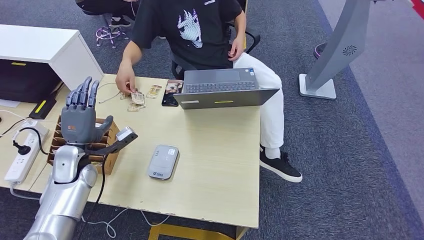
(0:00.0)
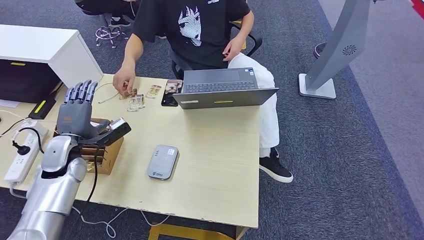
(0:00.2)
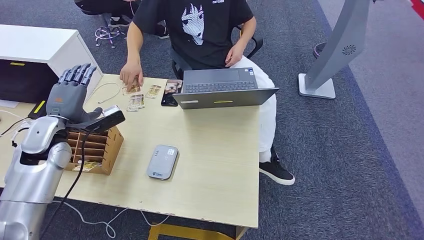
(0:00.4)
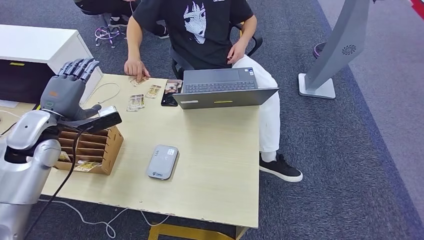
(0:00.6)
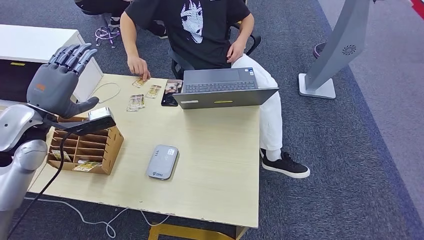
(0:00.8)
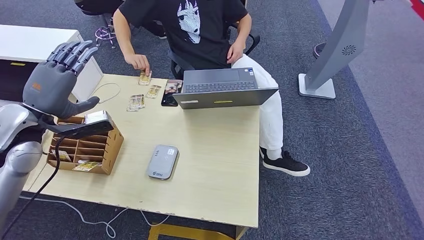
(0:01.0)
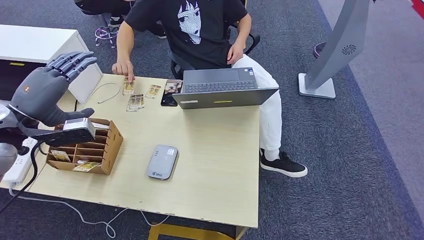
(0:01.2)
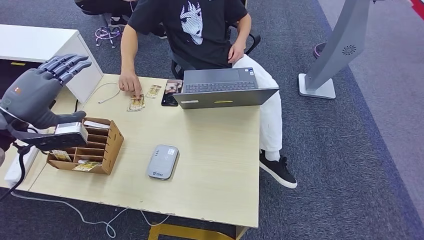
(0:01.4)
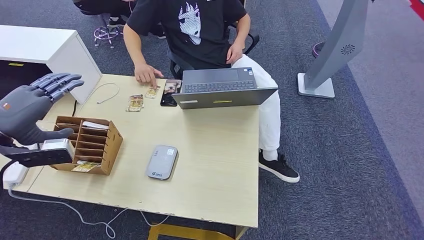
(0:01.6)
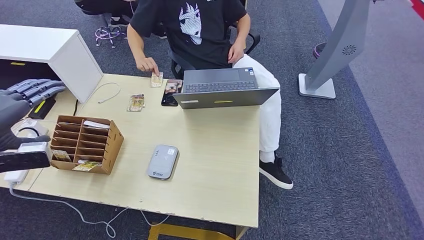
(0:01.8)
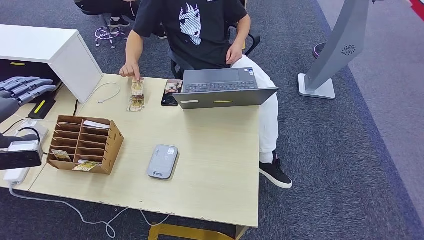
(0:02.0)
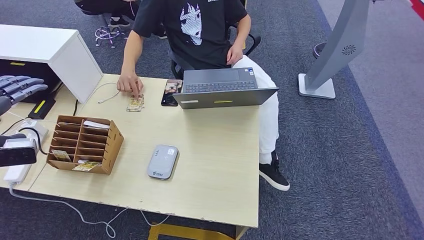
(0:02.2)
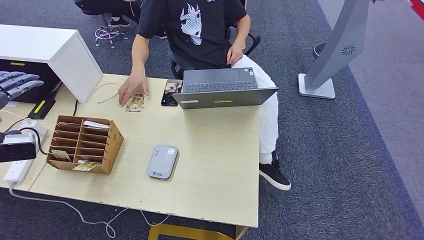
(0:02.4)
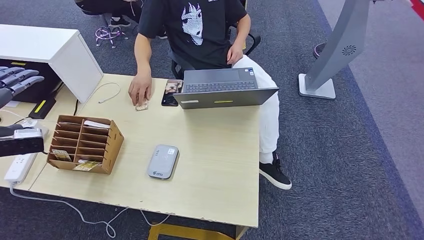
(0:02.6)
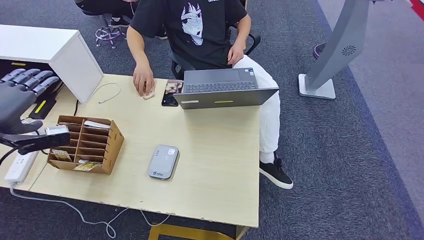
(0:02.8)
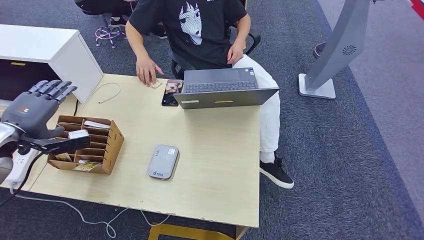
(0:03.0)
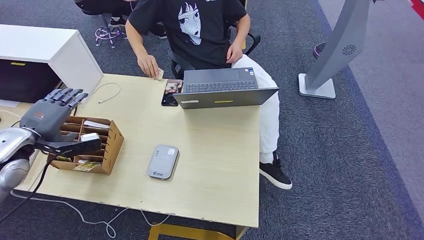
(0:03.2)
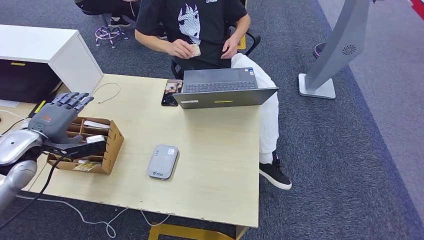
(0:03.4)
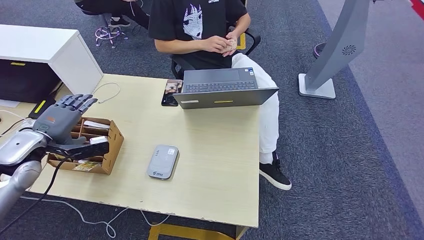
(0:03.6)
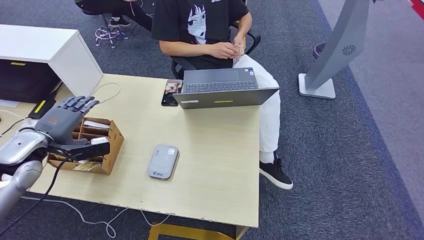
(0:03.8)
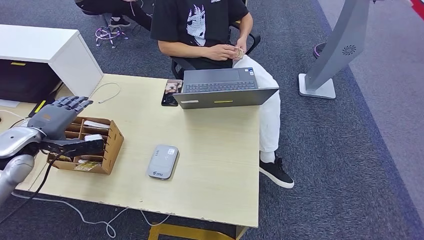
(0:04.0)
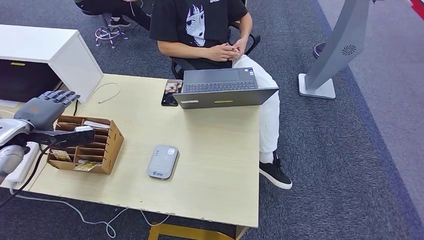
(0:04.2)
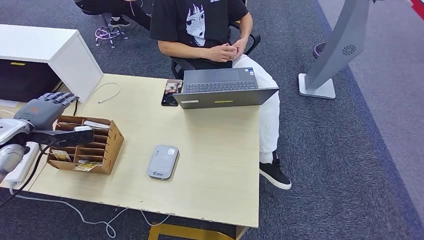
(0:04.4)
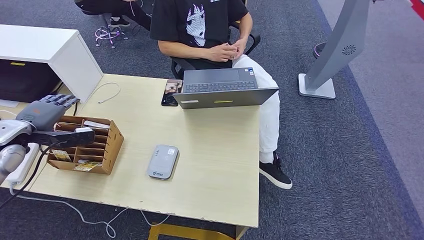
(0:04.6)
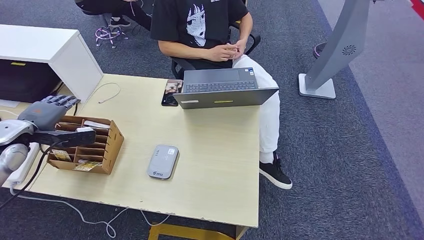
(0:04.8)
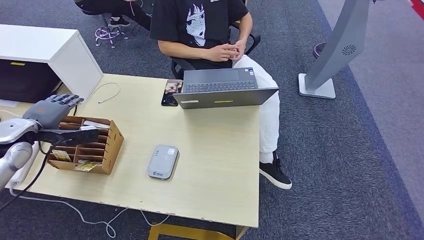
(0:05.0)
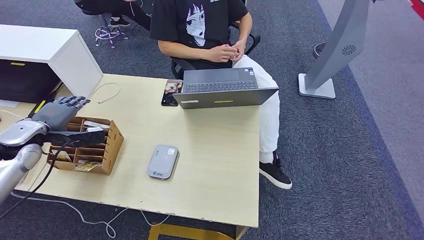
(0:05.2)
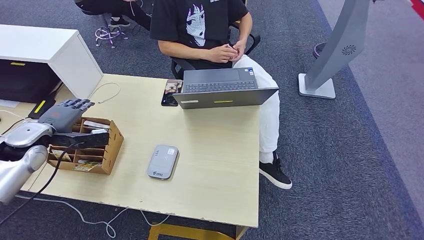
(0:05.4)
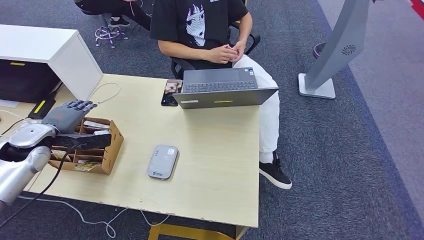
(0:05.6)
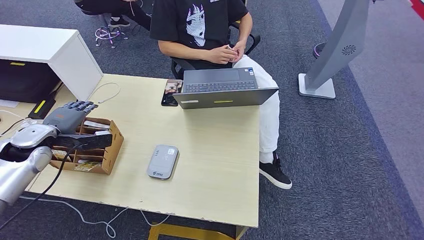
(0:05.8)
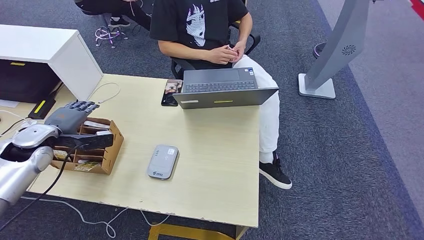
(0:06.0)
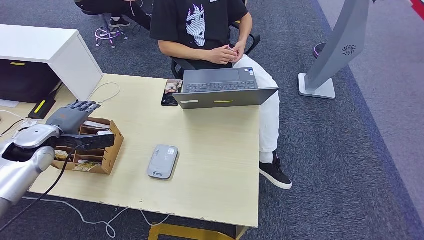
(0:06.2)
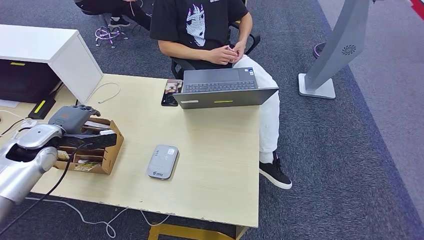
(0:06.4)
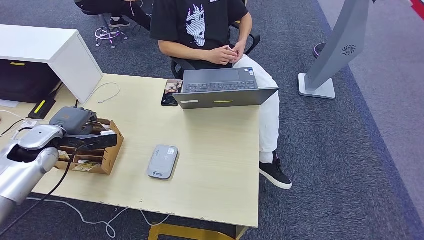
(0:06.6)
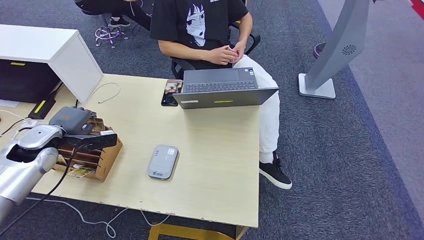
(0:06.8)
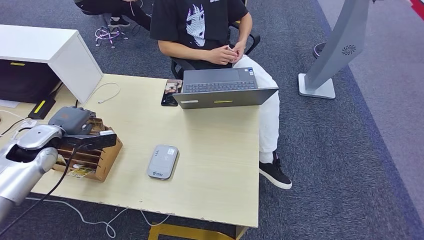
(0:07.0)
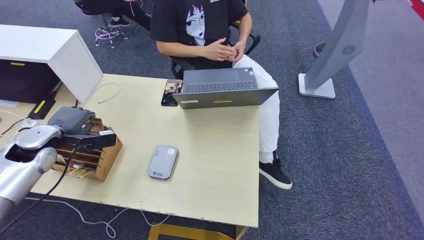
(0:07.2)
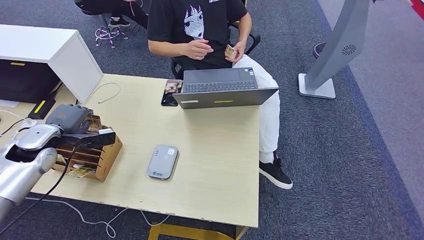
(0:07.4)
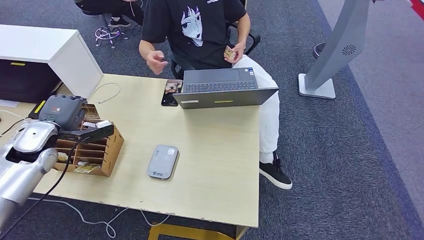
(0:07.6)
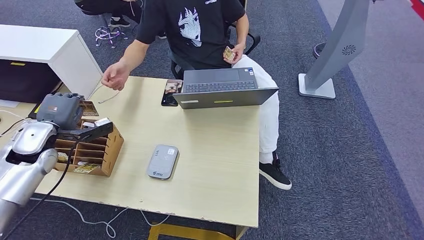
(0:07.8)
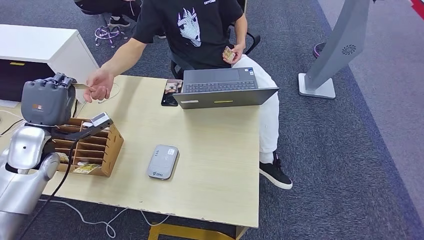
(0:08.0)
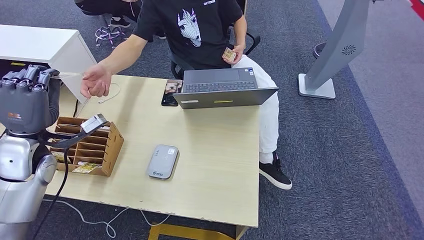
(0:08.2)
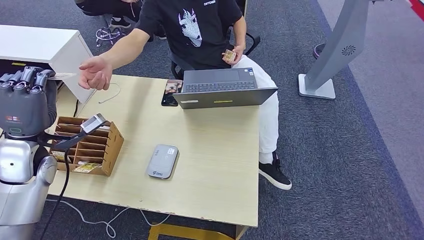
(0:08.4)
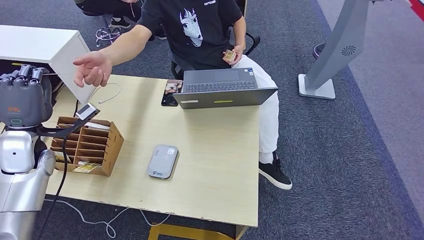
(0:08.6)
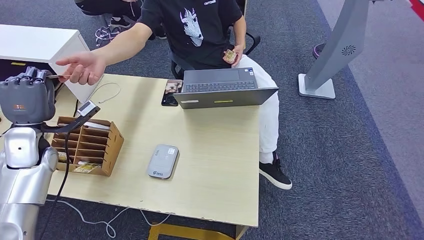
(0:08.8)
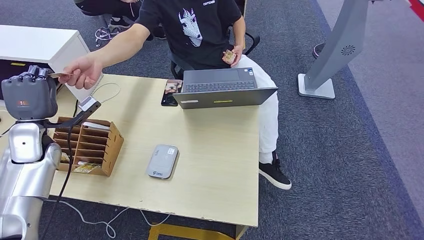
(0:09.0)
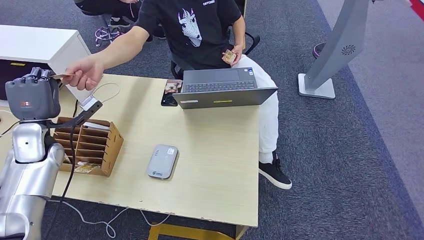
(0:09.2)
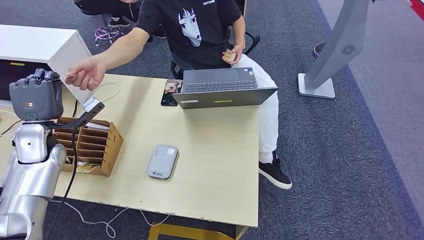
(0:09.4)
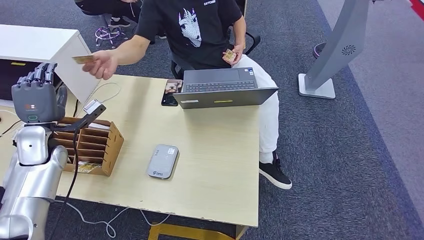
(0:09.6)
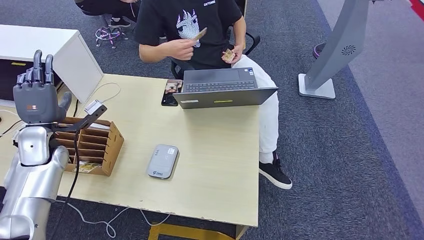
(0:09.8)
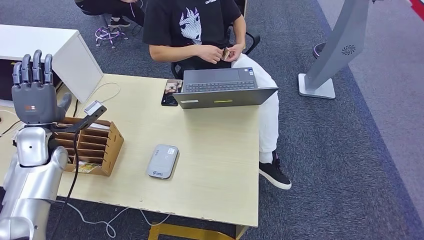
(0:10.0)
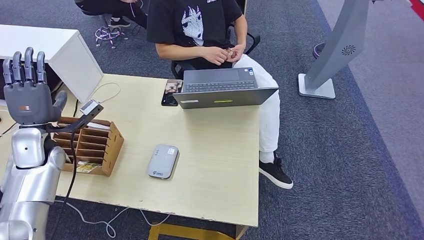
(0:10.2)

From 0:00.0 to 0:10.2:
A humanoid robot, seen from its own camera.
Step, from 0:00.2 to 0:07.8: Pick up the room key from the key card box.
Step, from 0:08.0 to 0:10.2: Hand the room key to the person.
From 0:00.0 to 0:01.4: The left hand travels upward by some 20 cm.
From 0:01.4 to 0:03.0: The left hand travels downward and to the left by about 5 cm.
From 0:03.0 to 0:04.4: The hands make only small movements.
From 0:04.4 to 0:05.8: The left hand moves some 5 cm.
From 0:05.8 to 0:07.2: Both hands stay put.
From 0:08.8 to 0:10.2: The hands stay close to where they were, moving slightly.

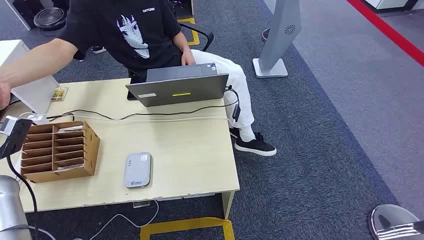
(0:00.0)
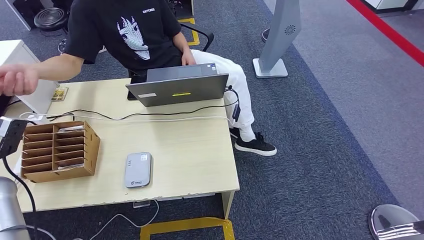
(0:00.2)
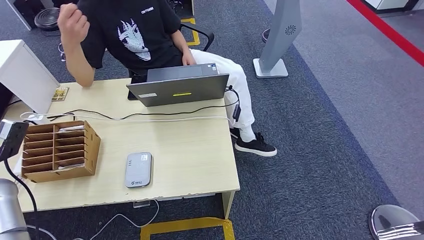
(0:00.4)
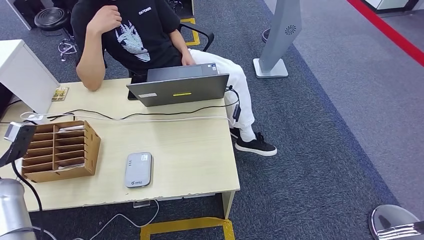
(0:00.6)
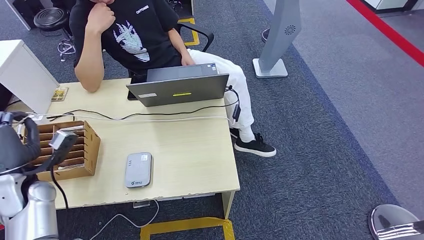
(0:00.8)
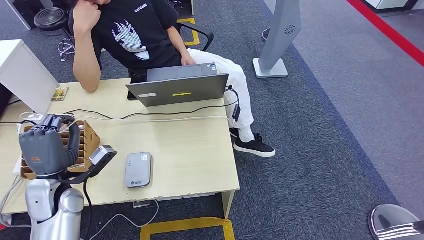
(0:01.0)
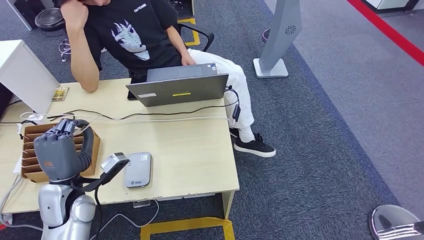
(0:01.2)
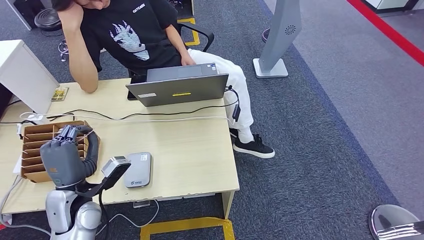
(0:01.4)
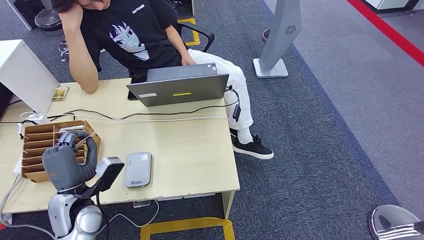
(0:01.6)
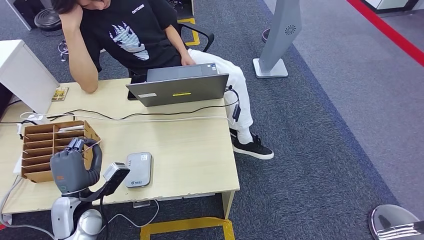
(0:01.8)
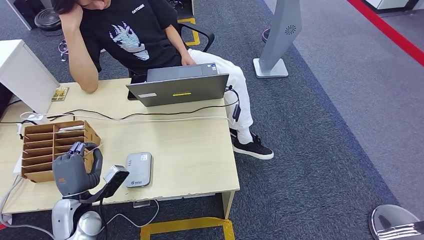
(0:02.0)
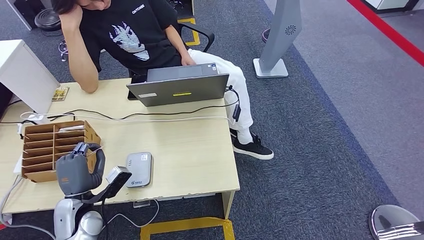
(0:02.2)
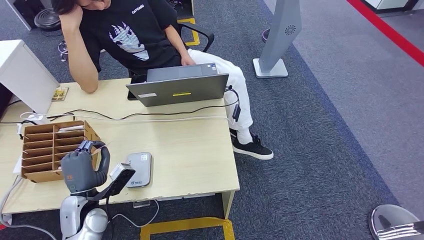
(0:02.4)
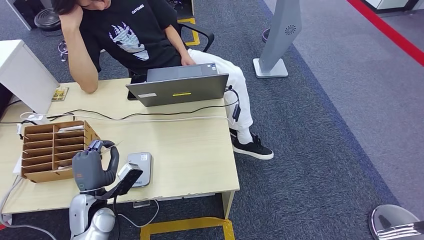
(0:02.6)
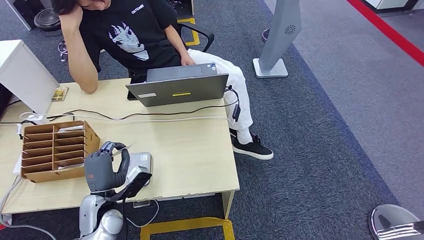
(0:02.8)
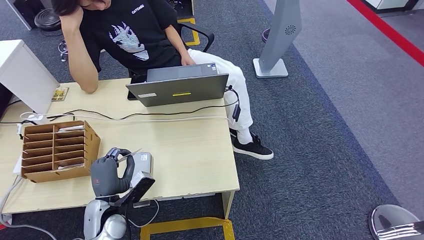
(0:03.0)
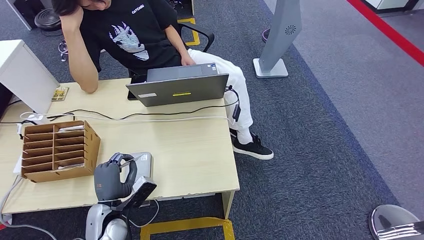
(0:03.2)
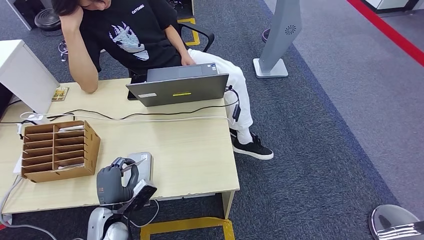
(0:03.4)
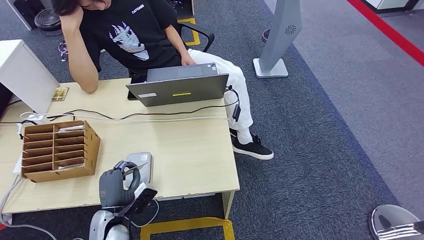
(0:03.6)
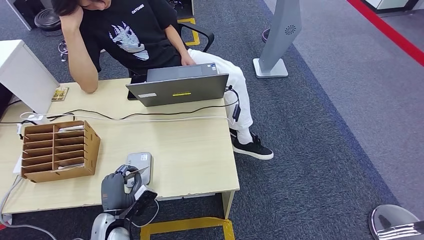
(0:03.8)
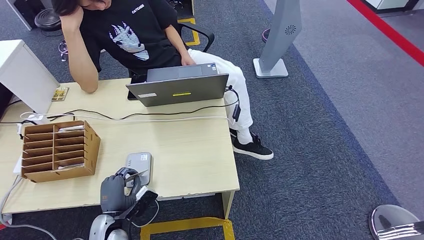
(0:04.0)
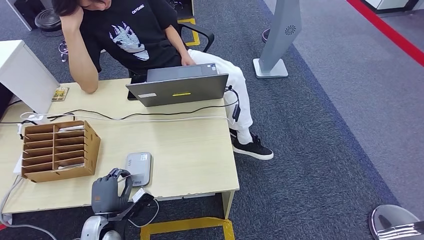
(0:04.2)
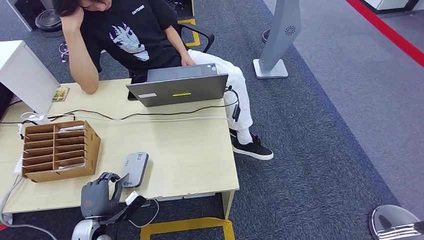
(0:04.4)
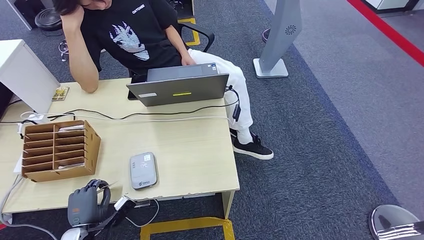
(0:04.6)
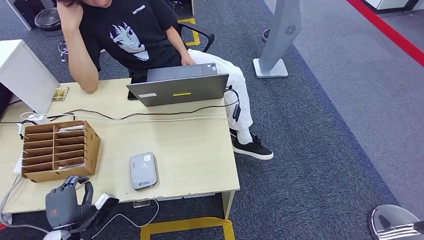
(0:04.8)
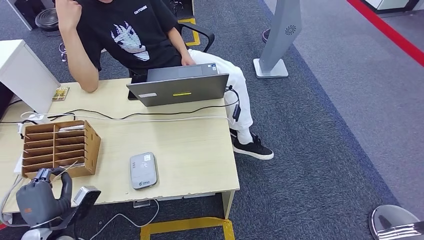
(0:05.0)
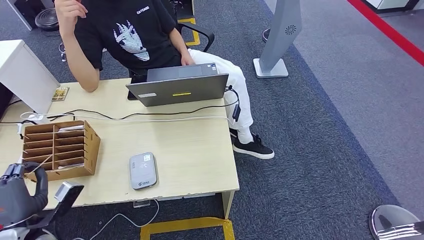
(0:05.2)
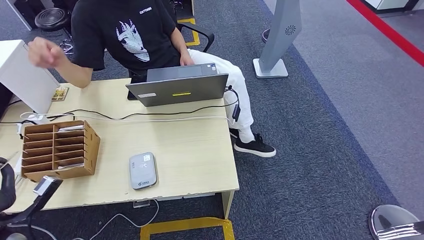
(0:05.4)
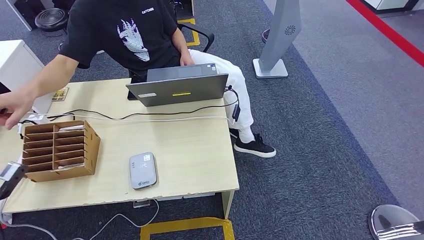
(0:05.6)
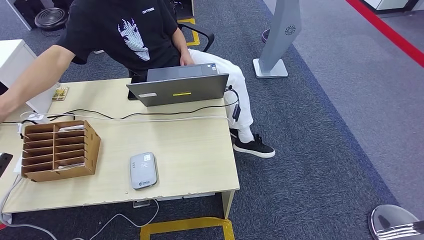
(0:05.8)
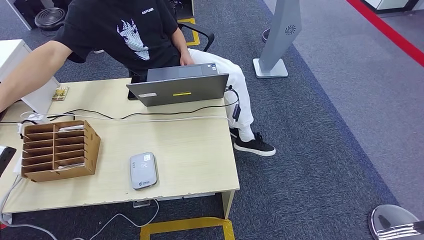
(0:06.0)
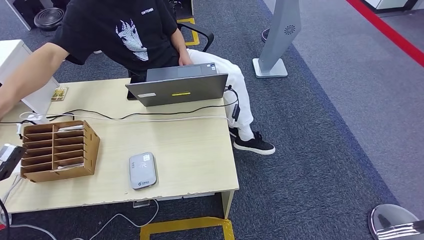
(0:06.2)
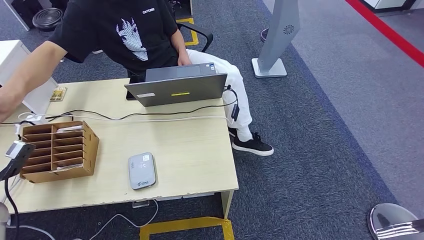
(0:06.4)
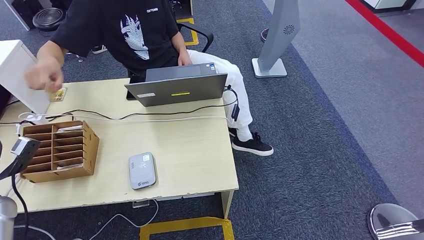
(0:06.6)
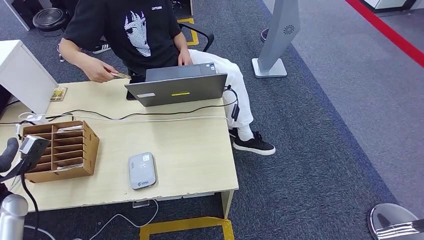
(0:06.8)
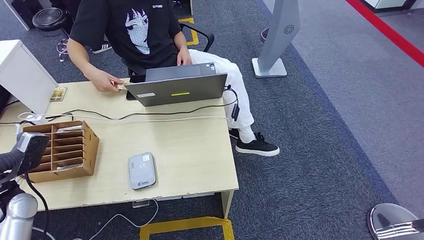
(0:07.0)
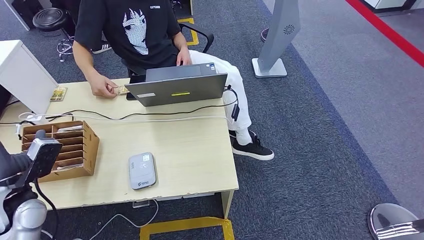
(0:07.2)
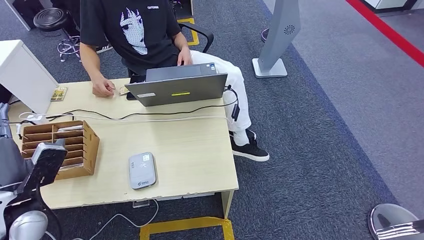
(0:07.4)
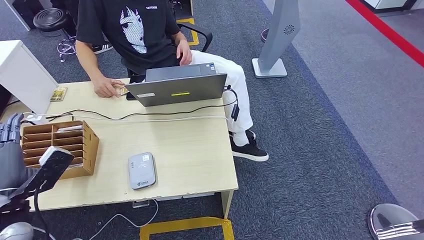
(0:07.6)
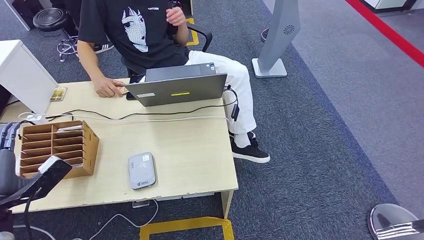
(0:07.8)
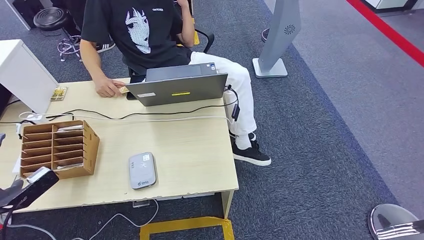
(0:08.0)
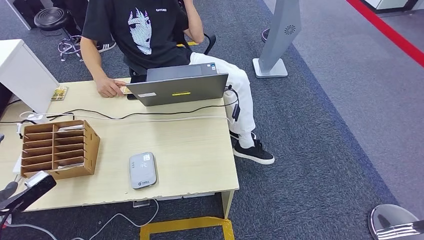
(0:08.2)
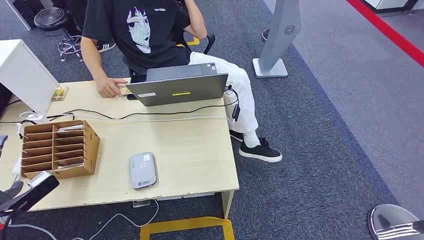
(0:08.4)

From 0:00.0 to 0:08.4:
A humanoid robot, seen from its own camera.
Step, from 0:00.0 to 0:01.4: Take the ID card from the person's hand.
Step, from 0:01.6 to 0:04.2: Place the ID card on the card reader.
Step, from 0:04.4 to 0:06.6: Hand the ID card to the person.
From 0:01.4 to 0:02.8: The left hand travels downward by roughly 5 cm.
From 0:02.8 to 0:04.2: The left hand shifts roughly 5 cm downward.
From 0:04.2 to 0:05.6: The left hand is displaced to the left and upward by roughly 30 cm.
From 0:05.6 to 0:07.0: The left hand heads to the right and forward, covering about 10 cm.
From 0:07.0 to 0:08.4: The left hand heads backward, covering about 10 cm.
